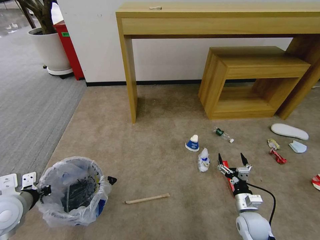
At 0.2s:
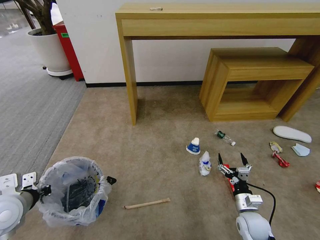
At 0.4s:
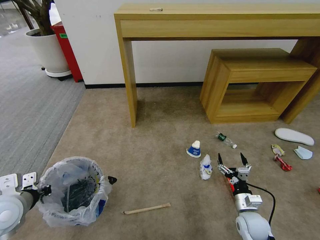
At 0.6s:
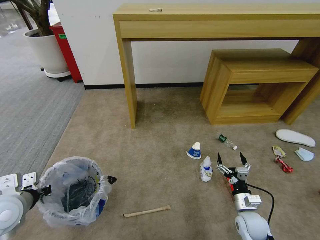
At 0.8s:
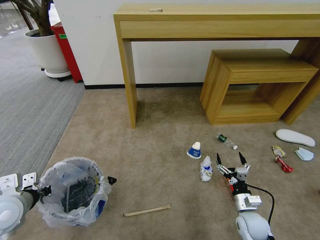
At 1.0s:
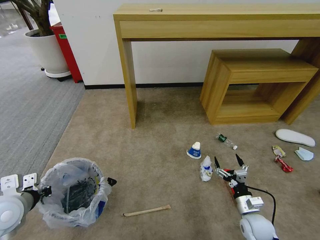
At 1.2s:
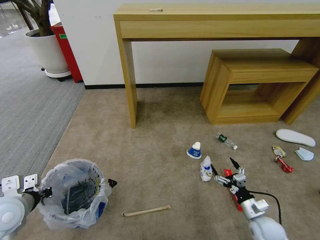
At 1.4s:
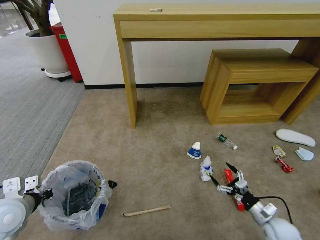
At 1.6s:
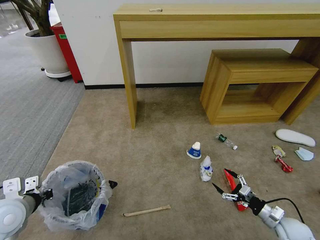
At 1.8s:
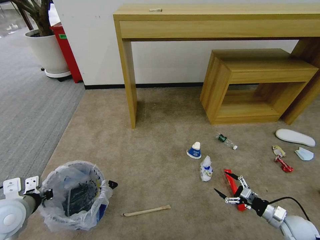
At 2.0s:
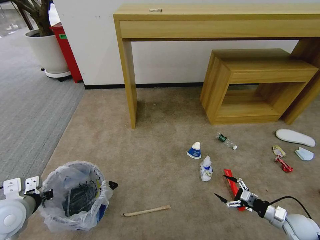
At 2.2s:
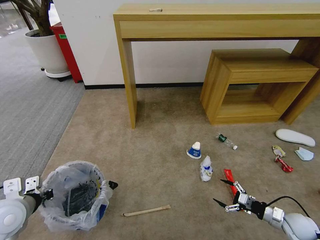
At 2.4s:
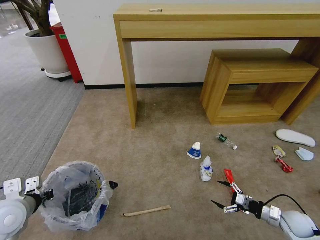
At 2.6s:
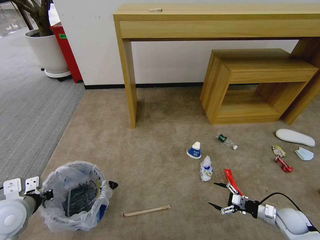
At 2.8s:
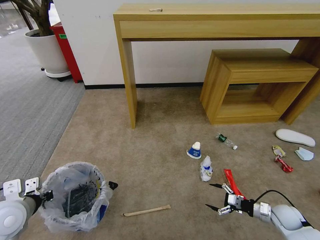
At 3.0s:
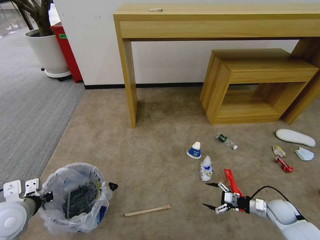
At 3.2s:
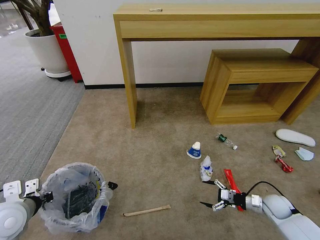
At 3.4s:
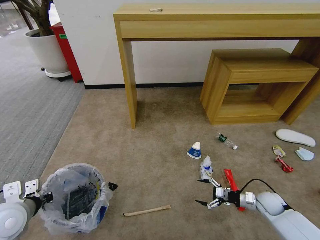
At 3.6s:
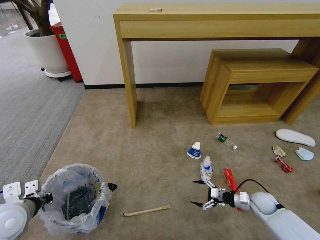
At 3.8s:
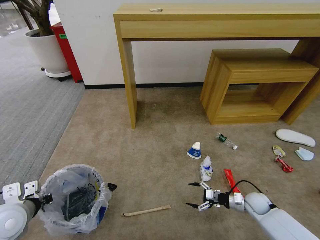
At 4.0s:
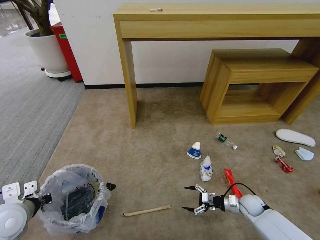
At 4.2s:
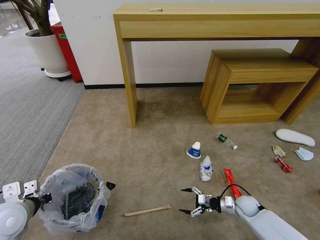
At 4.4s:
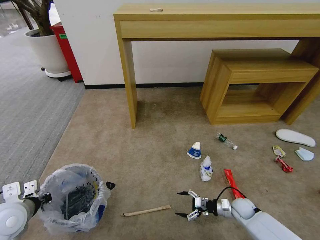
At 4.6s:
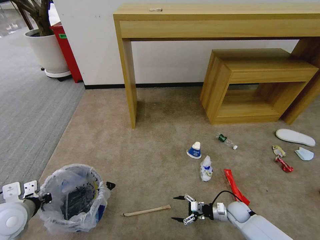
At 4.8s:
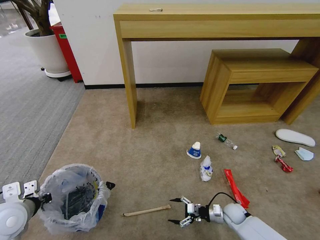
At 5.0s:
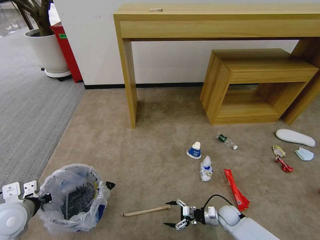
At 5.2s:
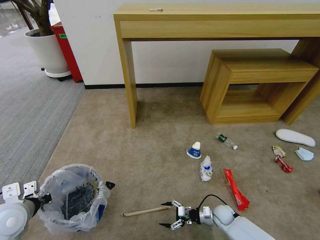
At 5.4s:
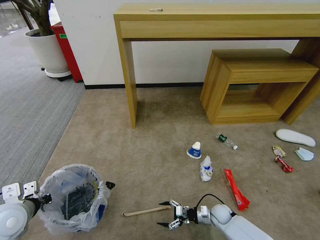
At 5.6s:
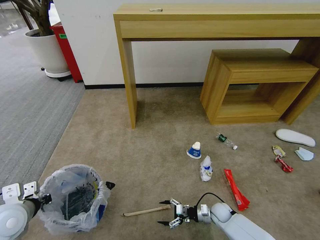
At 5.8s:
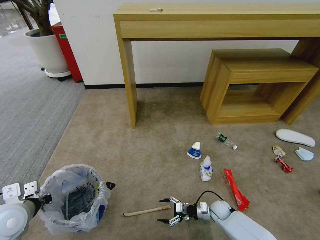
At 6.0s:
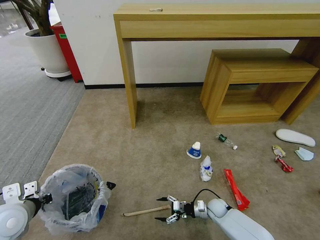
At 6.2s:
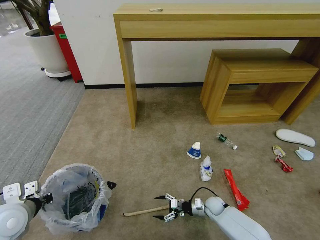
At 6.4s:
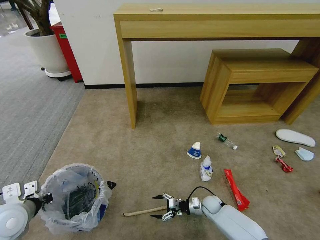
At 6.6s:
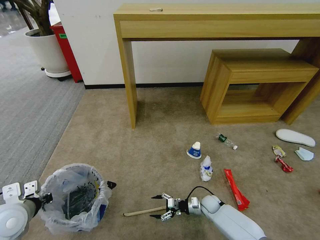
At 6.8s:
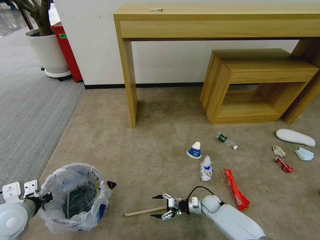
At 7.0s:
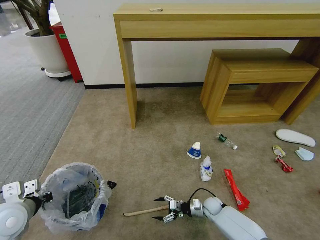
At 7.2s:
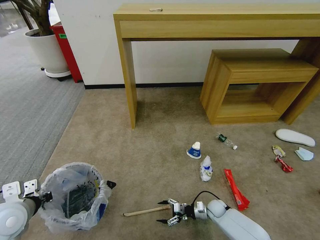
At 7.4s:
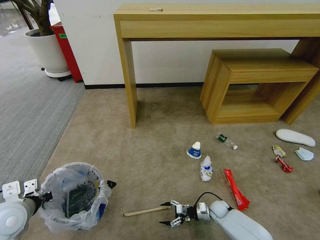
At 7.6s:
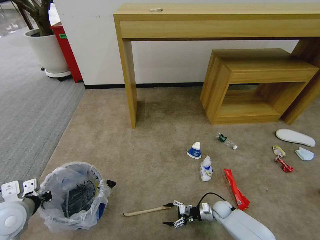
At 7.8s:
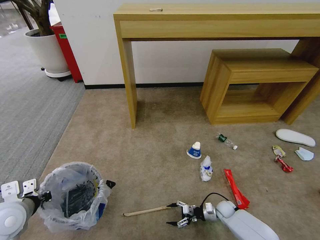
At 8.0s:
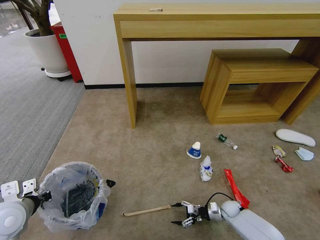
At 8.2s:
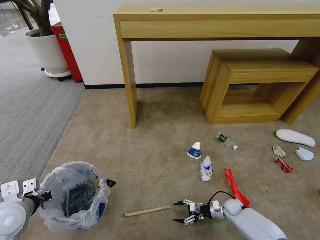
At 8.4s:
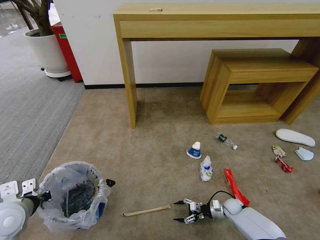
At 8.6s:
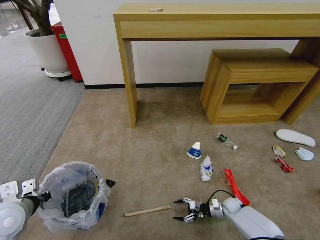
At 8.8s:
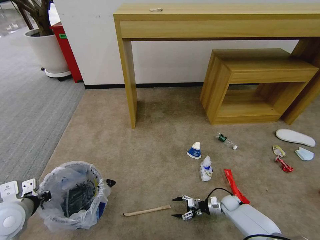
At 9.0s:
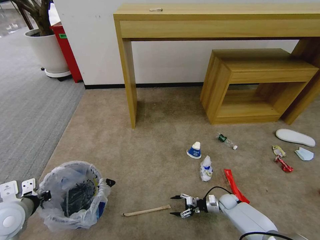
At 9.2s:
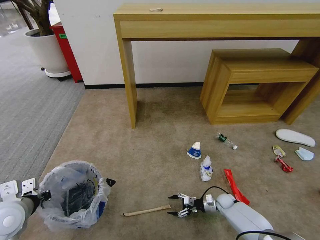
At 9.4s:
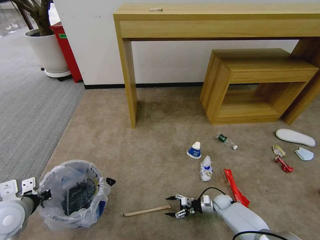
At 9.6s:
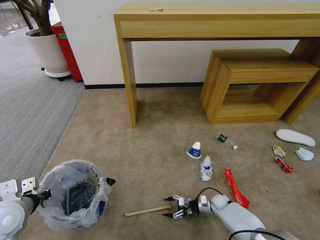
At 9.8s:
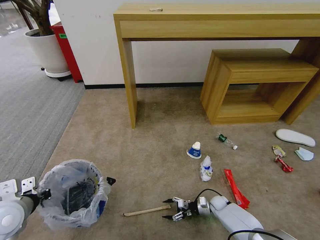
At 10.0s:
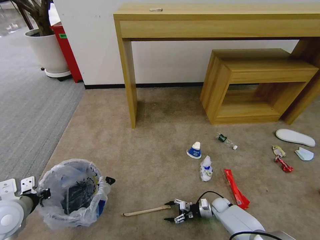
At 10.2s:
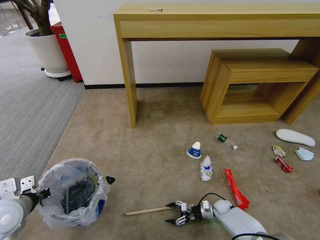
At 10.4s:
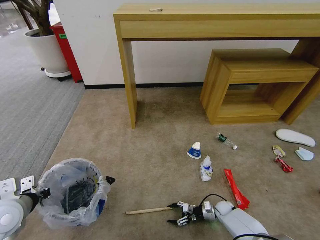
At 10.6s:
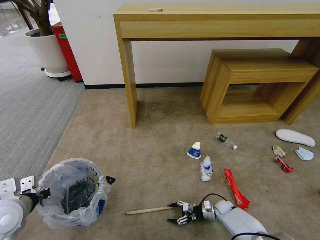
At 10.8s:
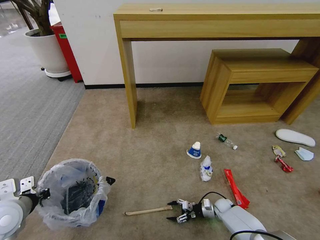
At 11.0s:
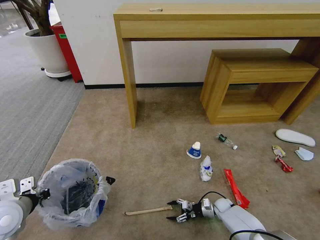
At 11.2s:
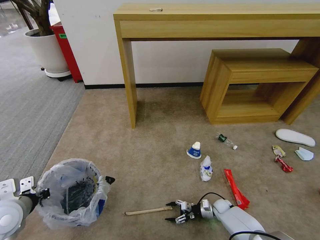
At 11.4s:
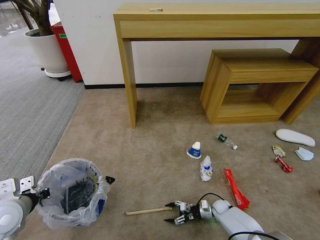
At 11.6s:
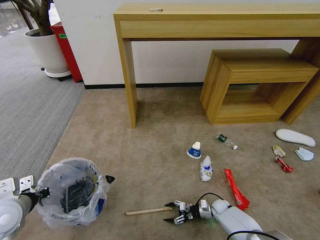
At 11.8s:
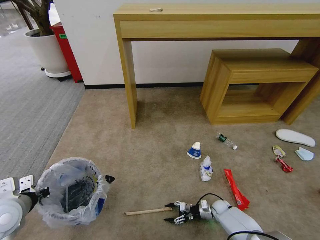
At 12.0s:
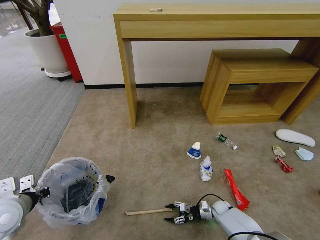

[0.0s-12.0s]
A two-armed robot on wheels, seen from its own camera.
Task of the whole recording: Pick up the trash bin and place the garbage on the floor into it.
0.0s to 1.6s: The right gripper moves to the right, approximately 15 cm.
1.6s to 3.0s: The right gripper moves forward, about 5 cm.
3.0s to 4.4s: The right gripper moves to the left and downward, approximately 15 cm.
4.4s to 6.0s: The right gripper shifts approximately 10 cm to the left.
6.0s to 7.6s: There are only small adjustments of the grippers.
7.6s to 9.0s: The right gripper changes place by some 5 cm.
9.0s to 12.0s: The grippers move only a little.

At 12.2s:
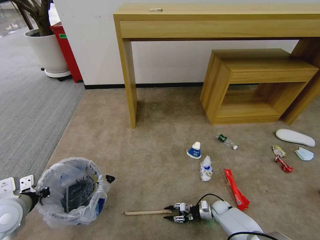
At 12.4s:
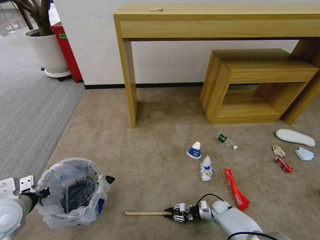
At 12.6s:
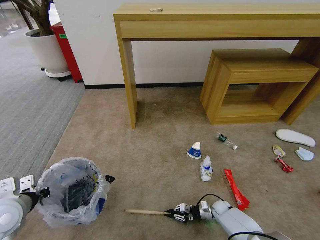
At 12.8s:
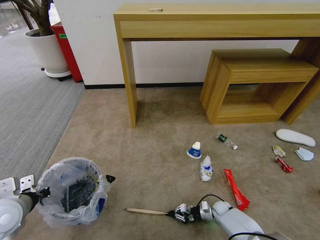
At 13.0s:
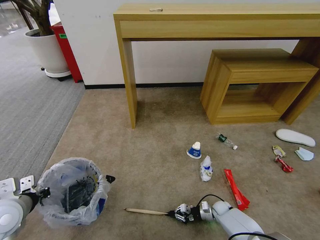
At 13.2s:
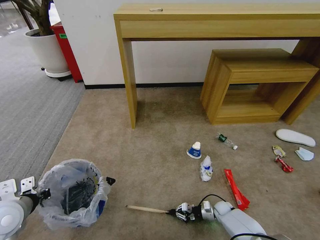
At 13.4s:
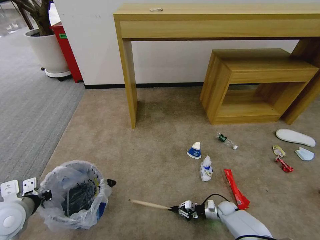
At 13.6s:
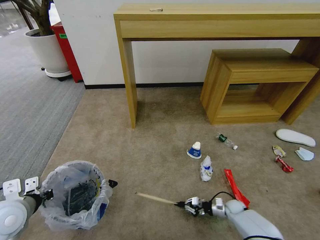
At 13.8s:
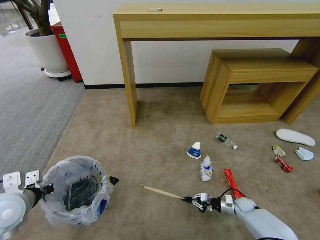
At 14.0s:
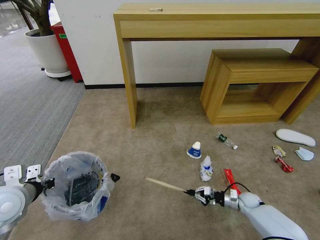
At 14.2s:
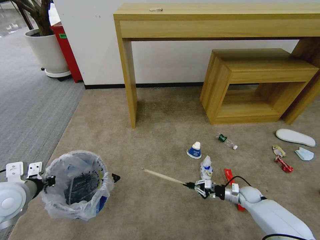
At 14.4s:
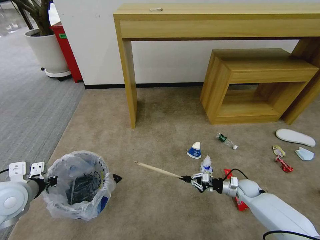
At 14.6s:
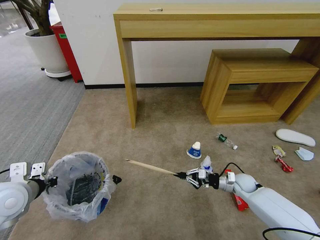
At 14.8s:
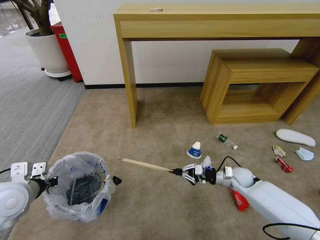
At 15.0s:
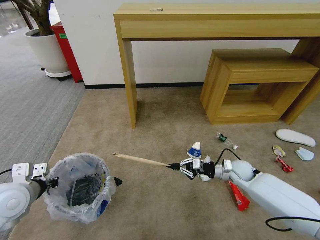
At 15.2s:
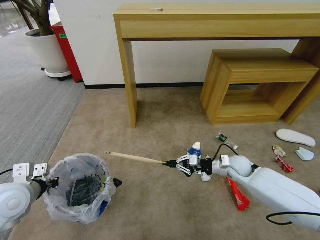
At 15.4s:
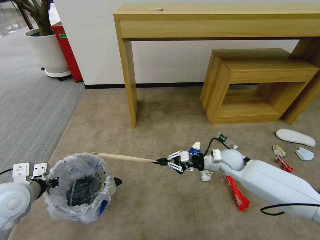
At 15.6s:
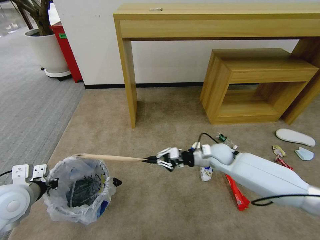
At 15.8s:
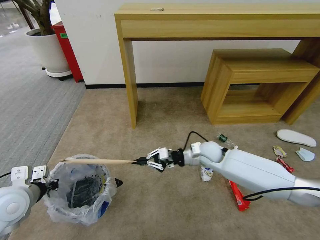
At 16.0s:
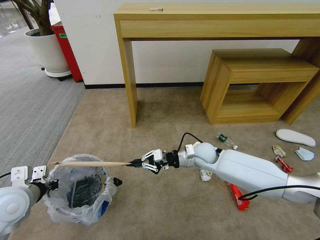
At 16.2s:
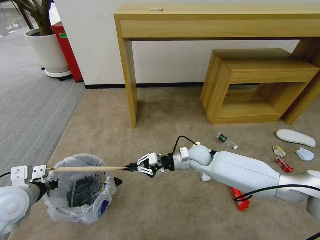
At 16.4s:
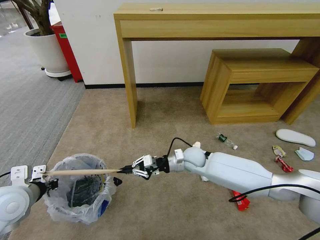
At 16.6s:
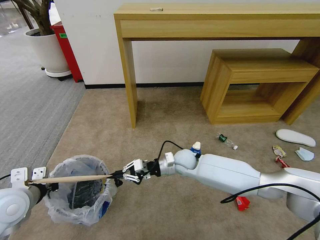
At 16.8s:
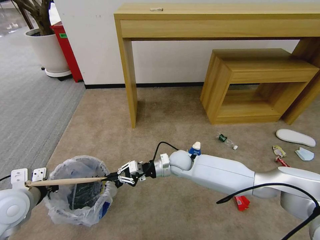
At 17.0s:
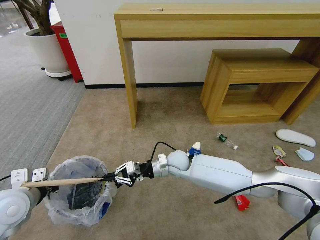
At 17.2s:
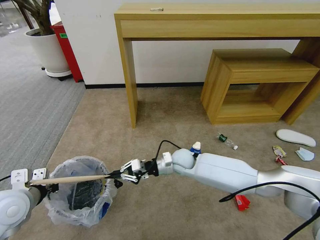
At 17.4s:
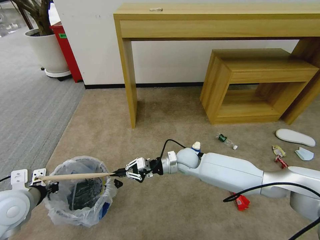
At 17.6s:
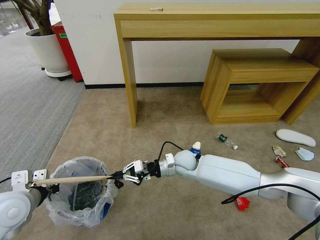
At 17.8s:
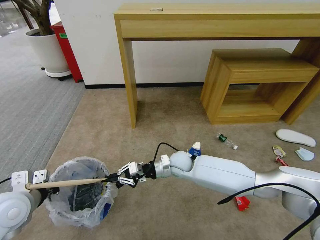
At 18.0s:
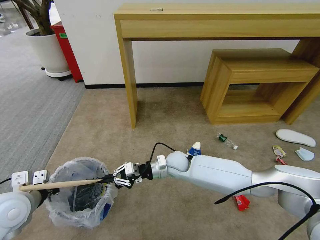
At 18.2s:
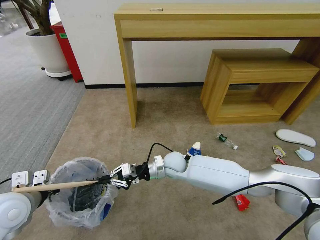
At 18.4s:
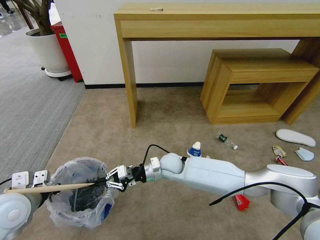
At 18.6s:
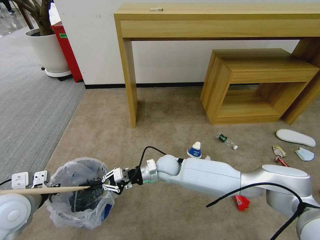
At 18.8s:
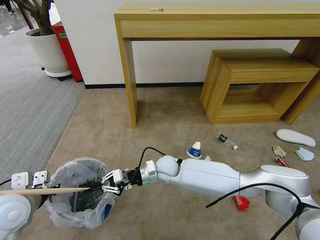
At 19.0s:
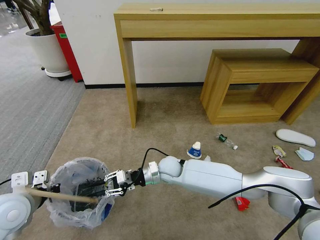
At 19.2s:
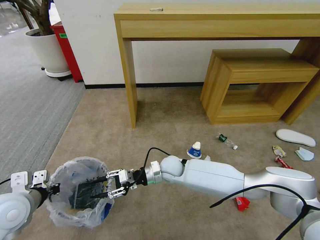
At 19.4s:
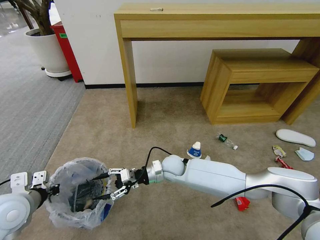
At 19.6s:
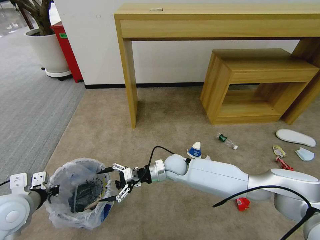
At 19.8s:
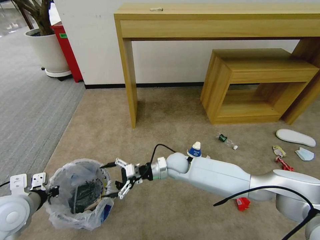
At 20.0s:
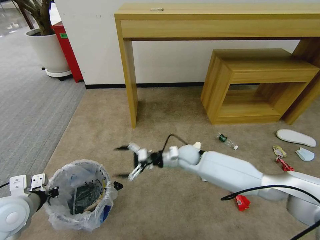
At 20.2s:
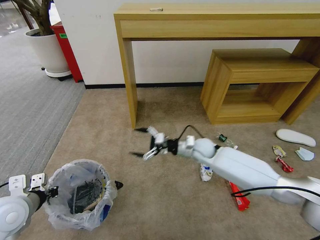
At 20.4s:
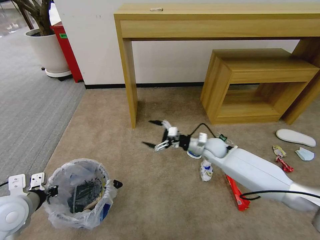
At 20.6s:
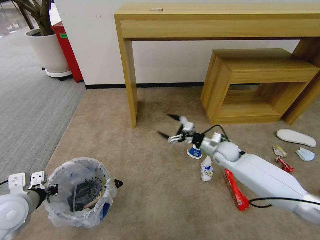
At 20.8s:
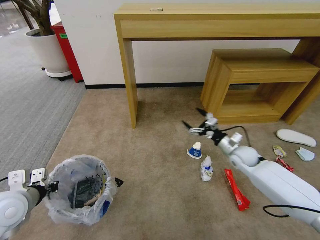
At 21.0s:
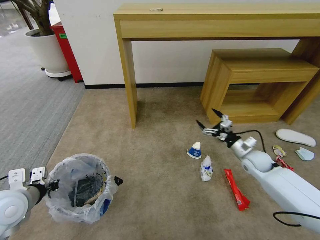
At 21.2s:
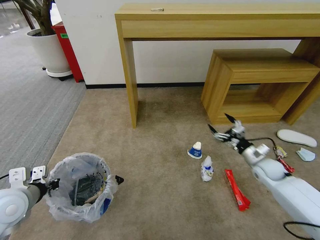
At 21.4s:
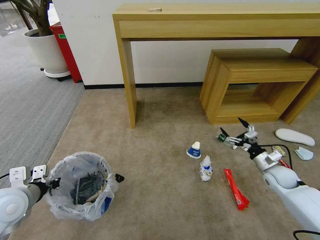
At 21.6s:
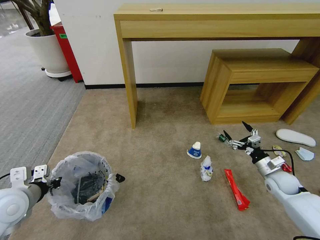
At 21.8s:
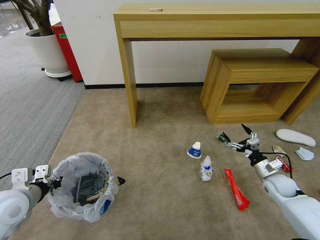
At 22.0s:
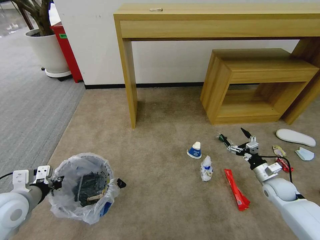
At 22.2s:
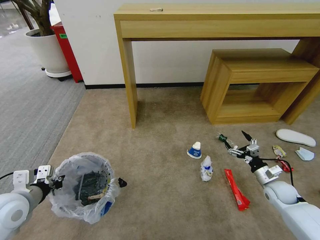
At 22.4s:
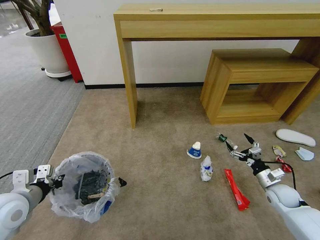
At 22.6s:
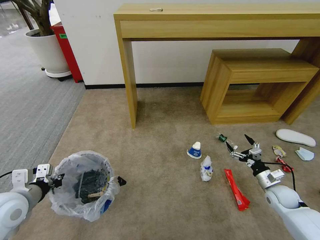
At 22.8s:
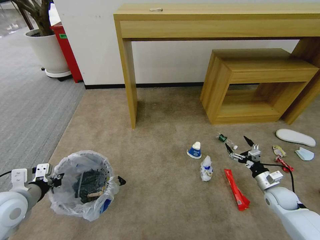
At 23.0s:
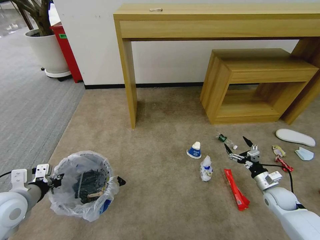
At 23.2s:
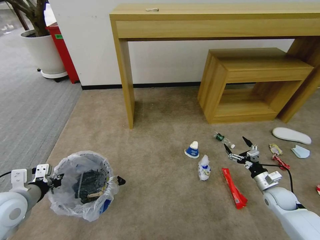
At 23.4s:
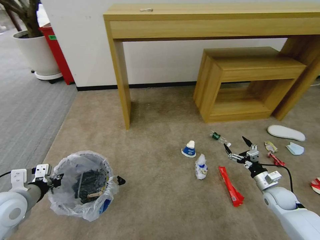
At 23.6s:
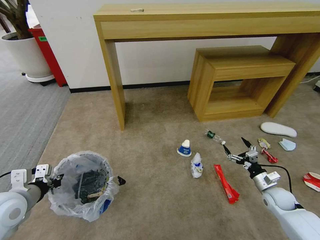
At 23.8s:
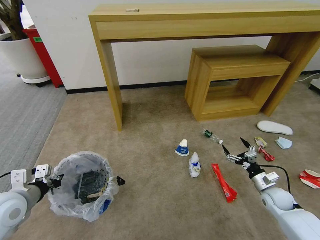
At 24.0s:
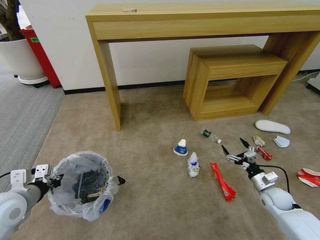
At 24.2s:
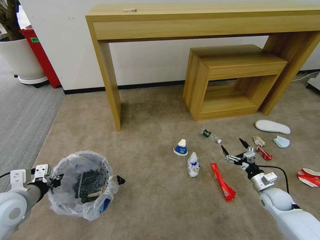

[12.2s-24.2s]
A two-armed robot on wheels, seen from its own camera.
Task of the whole recording: Pick up the trash bin and place the garbage on the floor into it.
12.2s to 13.8s: The right gripper goes approximately 10 cm to the right and upward, and closes its fingers.
13.8s to 15.2s: The right gripper moves upward, roughly 25 cm.
15.2s to 16.6s: The right gripper heads to the left, covering approximately 20 cm.
16.6s to 18.2s: The grippers move only a little.
18.2s to 19.8s: The right gripper opens its fingers.
19.8s to 21.2s: The right gripper moves to the right, about 35 cm.
21.2s to 22.6s: The right gripper goes about 10 cm backward, downward and to the right.
